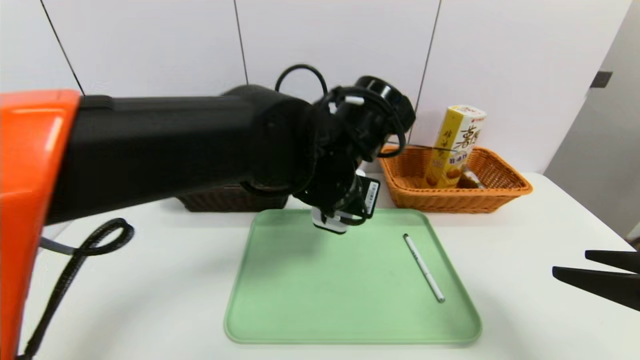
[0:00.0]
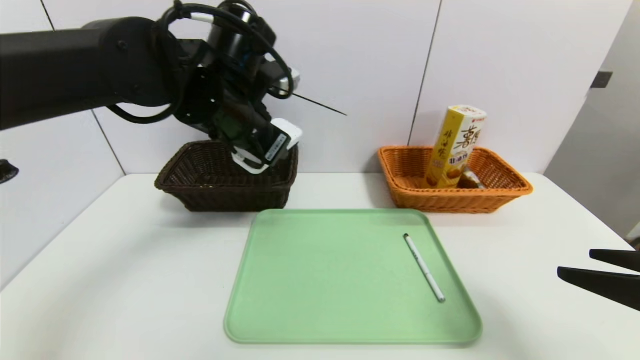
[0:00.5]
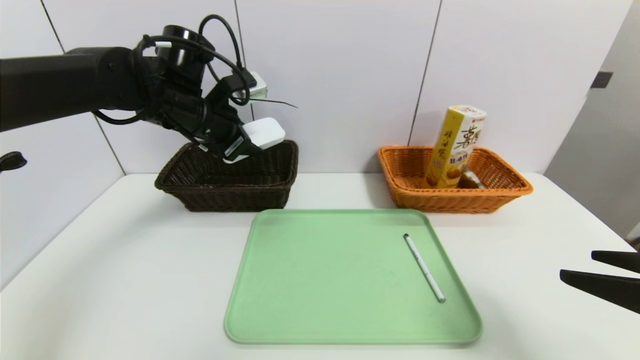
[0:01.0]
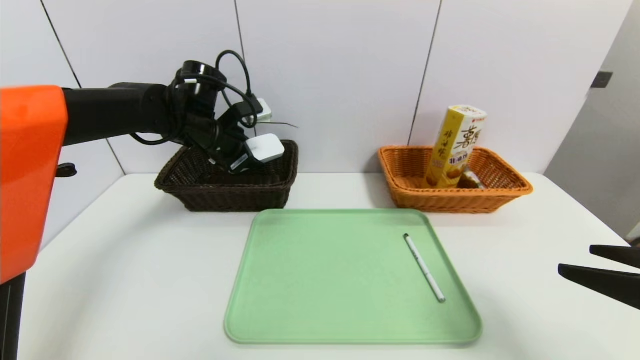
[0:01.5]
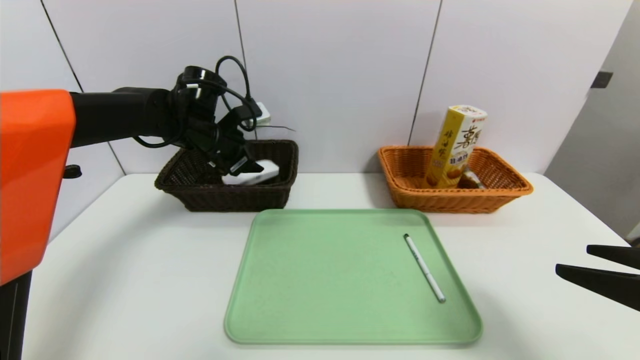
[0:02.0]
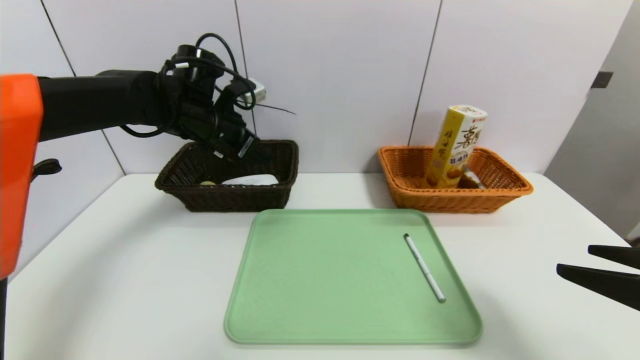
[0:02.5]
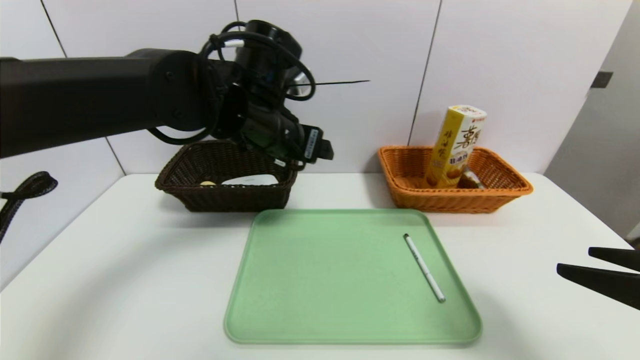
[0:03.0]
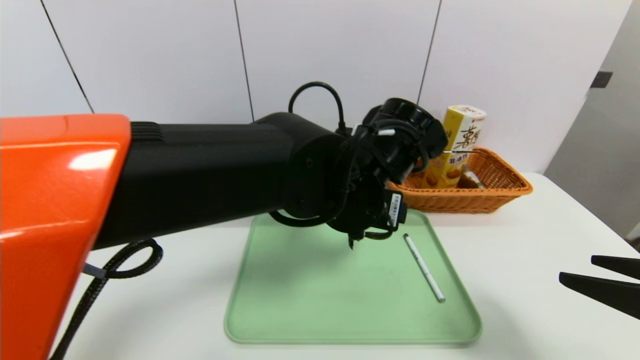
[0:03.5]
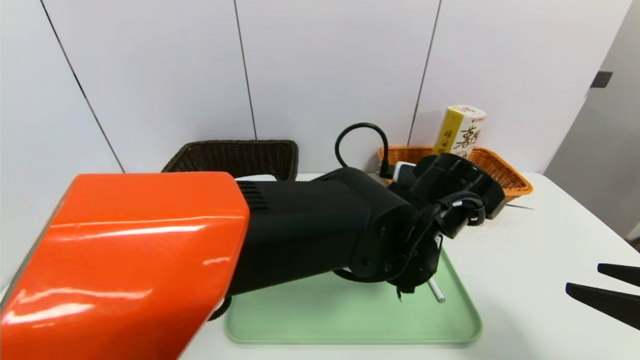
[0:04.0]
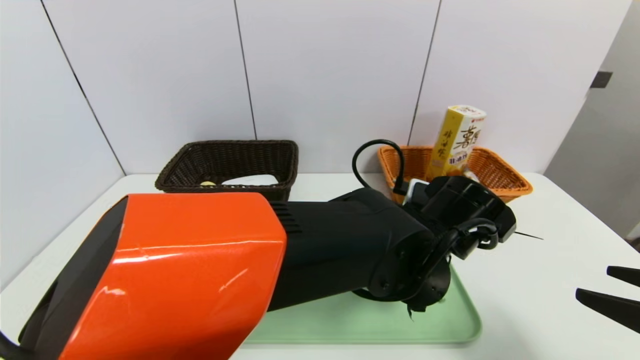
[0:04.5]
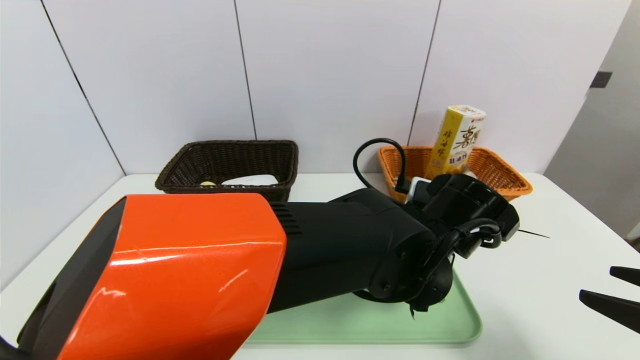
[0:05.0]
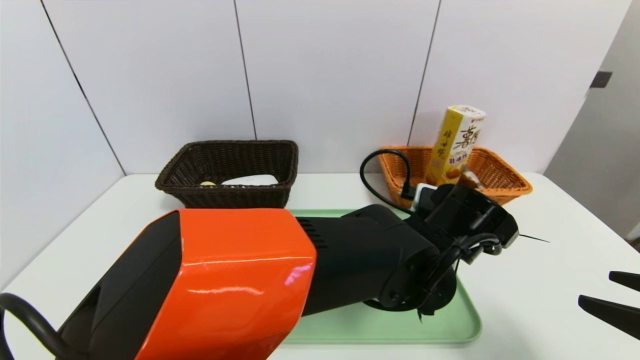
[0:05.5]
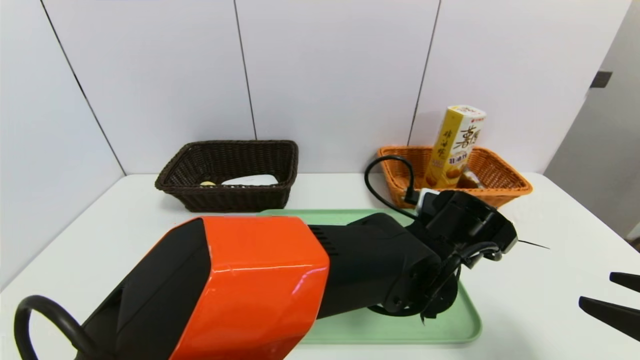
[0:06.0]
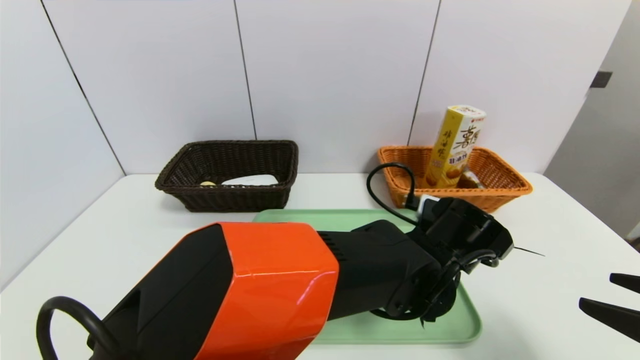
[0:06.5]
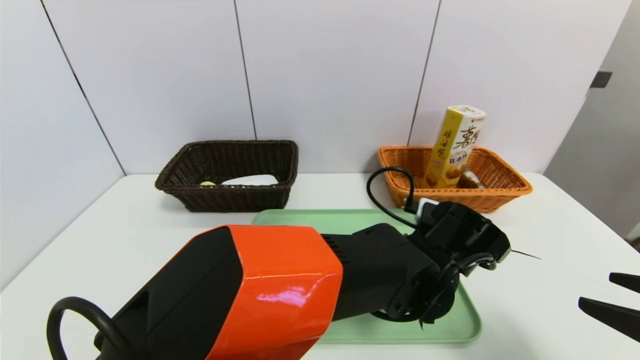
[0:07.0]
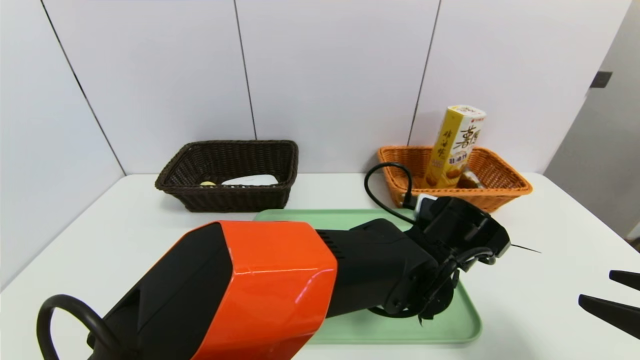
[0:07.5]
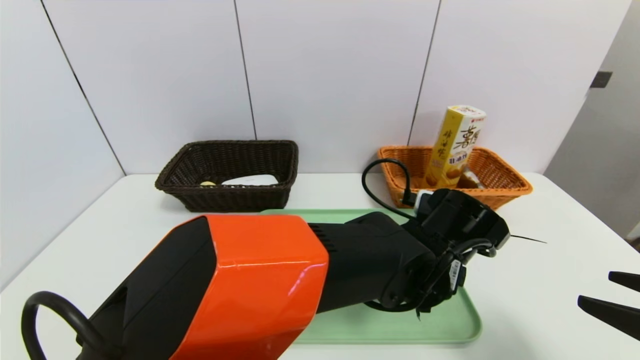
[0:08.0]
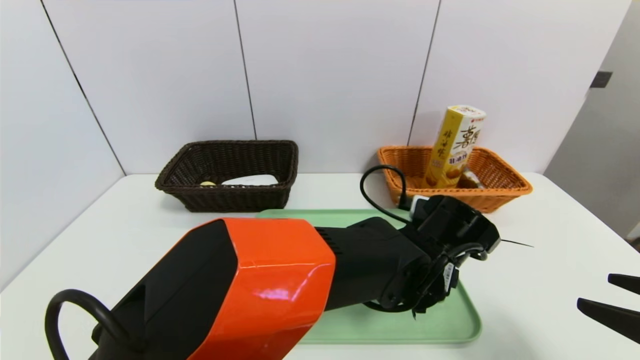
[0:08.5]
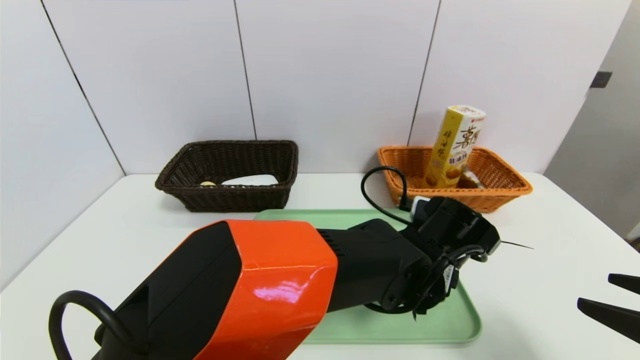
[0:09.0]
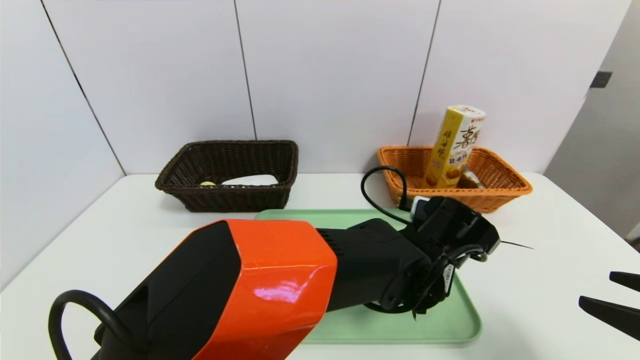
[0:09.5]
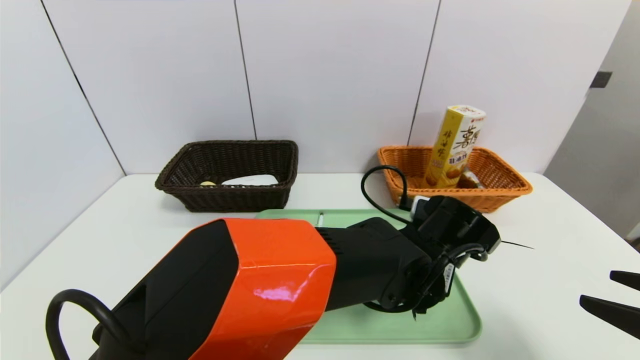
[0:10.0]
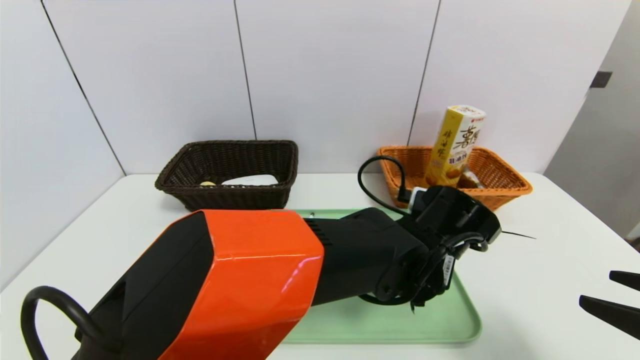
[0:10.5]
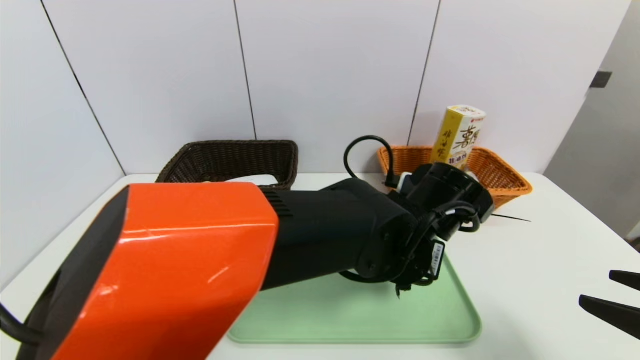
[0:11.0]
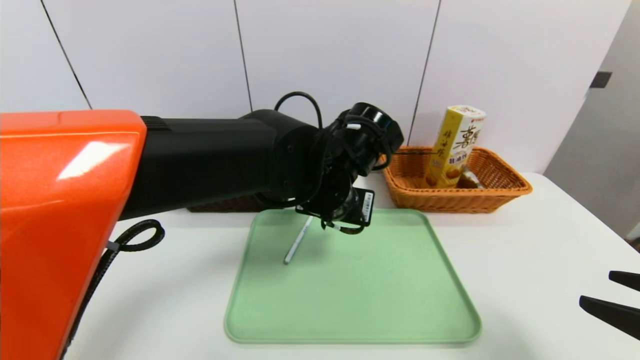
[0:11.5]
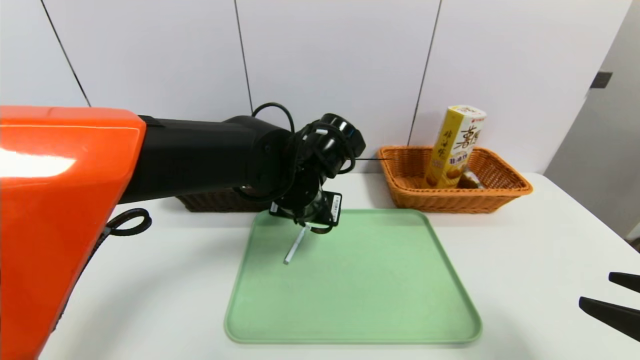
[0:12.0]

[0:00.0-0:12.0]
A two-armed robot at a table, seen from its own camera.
Task of the whole recording: place the food in the right basket with the right gripper, and place the non food items in the left basket with the left gripper.
Step, 0:00.0 to 0:02.5: Grasp the white eraser and put it in the left basket.
0:00.0 to 0:02.0: The left gripper heads to the left and forward, covering roughly 25 cm.
0:02.0 to 0:04.0: The left gripper is displaced to the right and backward by roughly 35 cm.
0:04.0 to 0:06.0: The left gripper shifts by roughly 5 cm, and closes, then reopens.
0:06.0 to 0:08.0: There are only small adjustments of the grippers.
0:08.0 to 0:10.0: The left gripper closes its fingers.
0:10.0 to 0:12.0: The left gripper moves to the left and upward, some 15 cm, and opens.

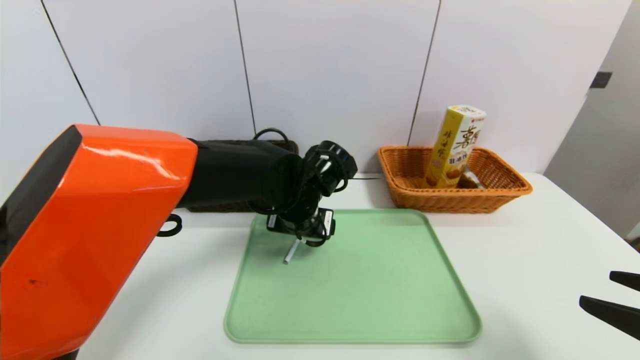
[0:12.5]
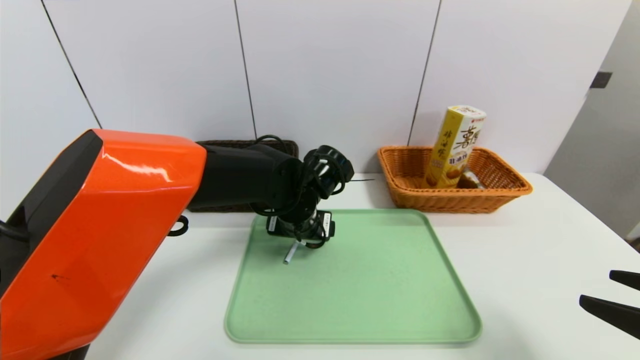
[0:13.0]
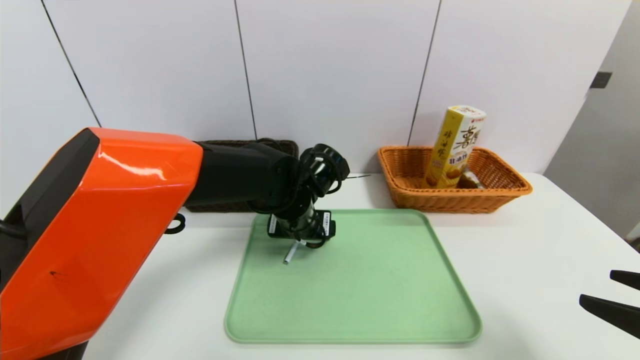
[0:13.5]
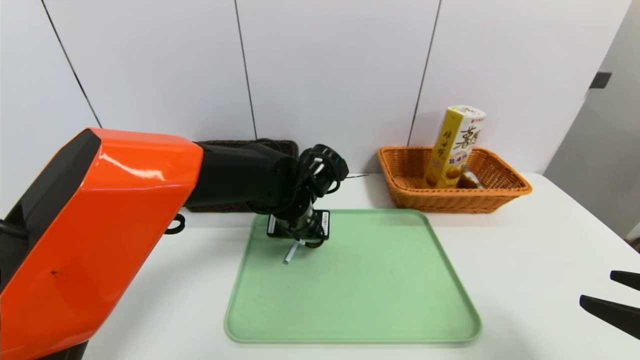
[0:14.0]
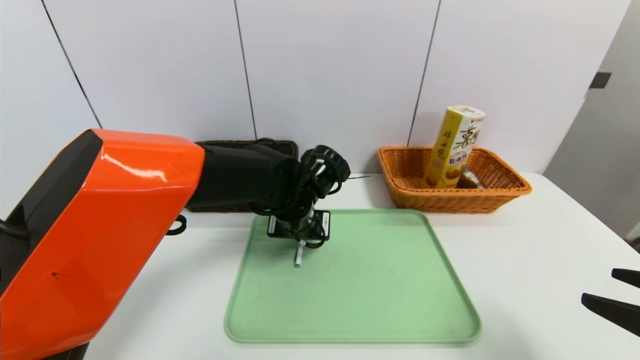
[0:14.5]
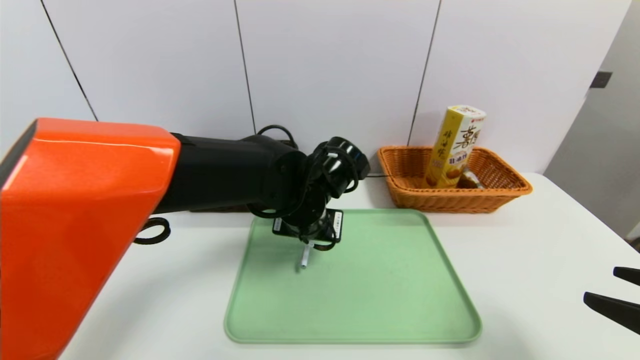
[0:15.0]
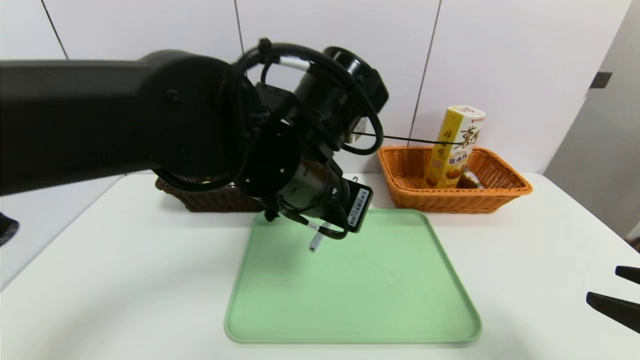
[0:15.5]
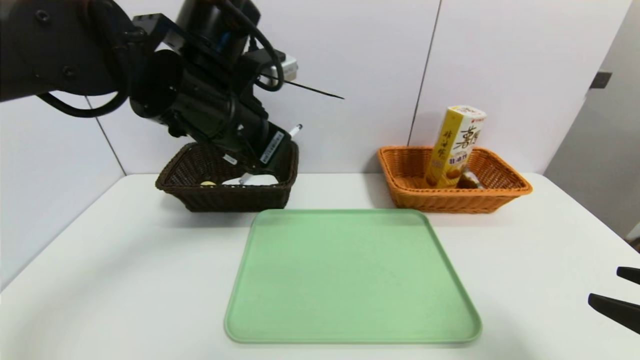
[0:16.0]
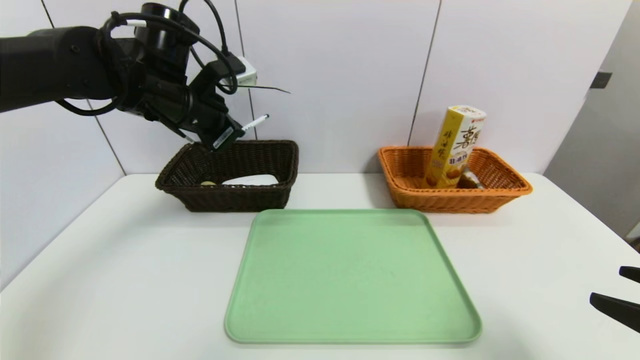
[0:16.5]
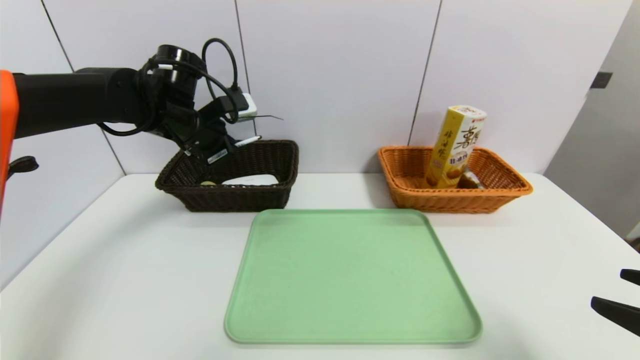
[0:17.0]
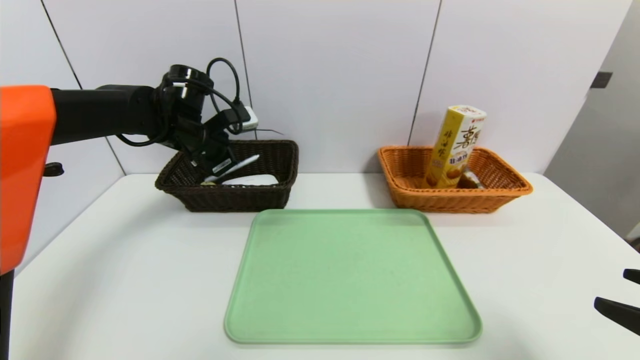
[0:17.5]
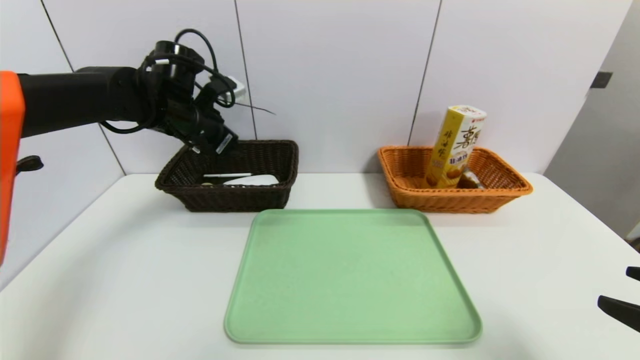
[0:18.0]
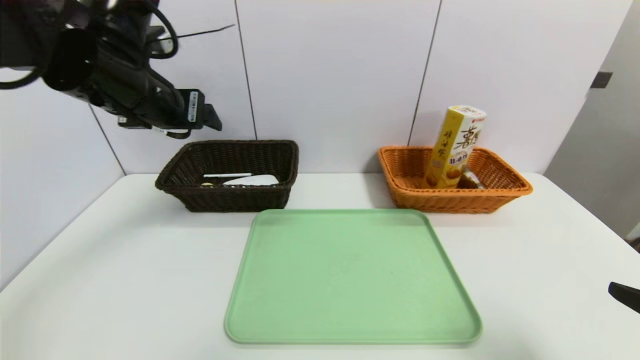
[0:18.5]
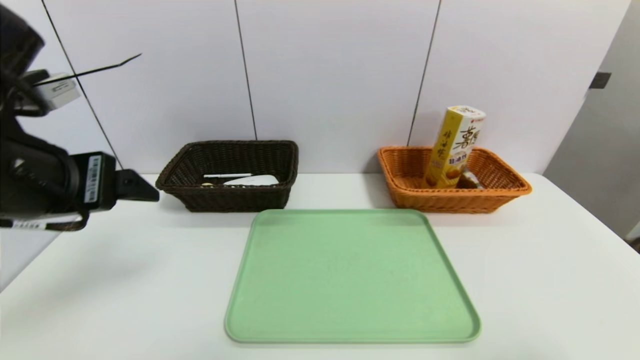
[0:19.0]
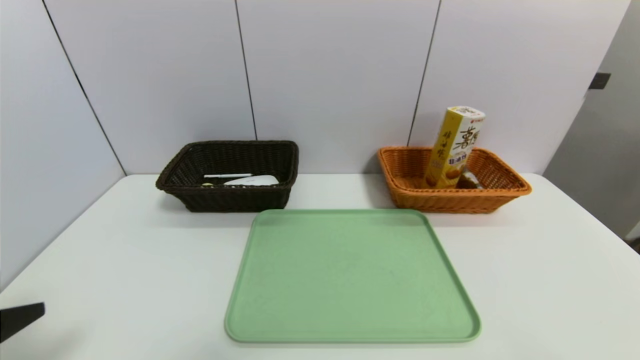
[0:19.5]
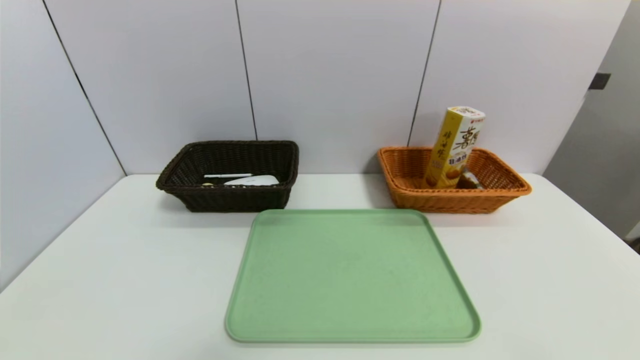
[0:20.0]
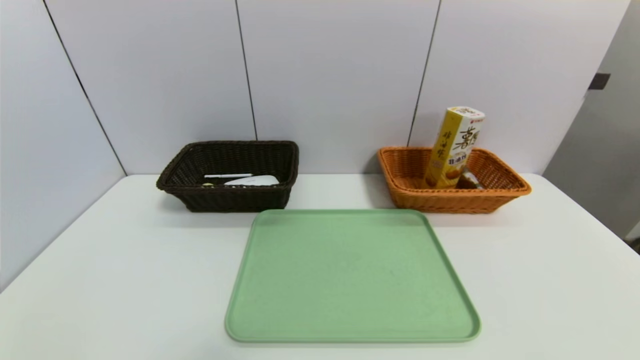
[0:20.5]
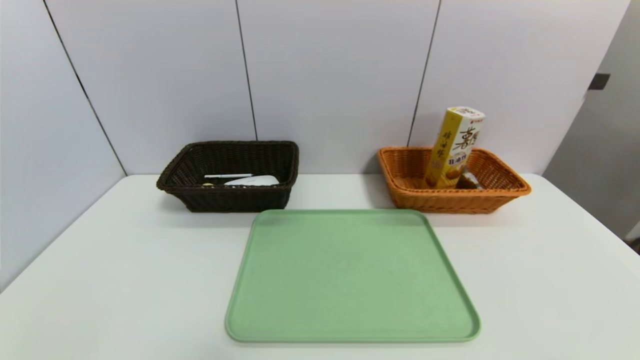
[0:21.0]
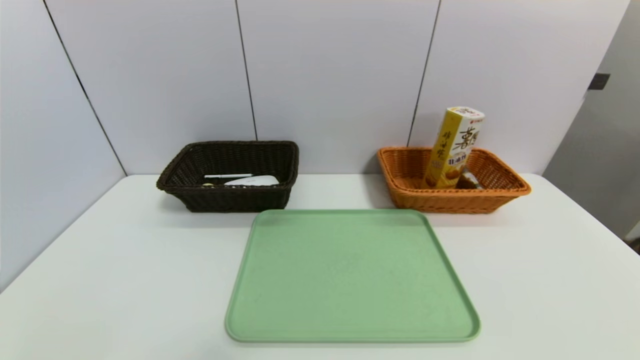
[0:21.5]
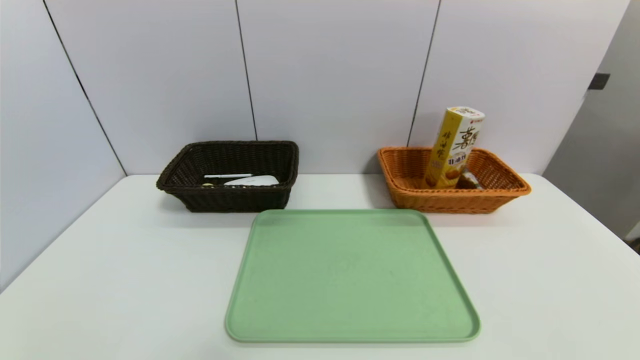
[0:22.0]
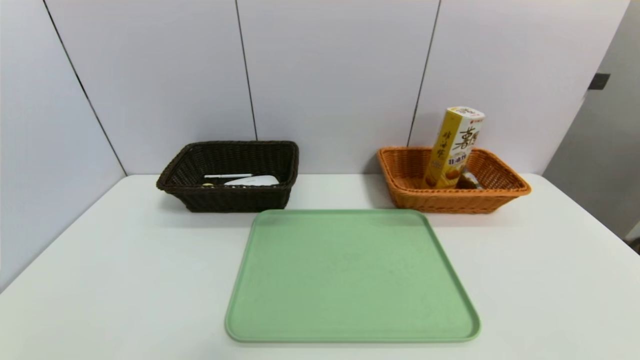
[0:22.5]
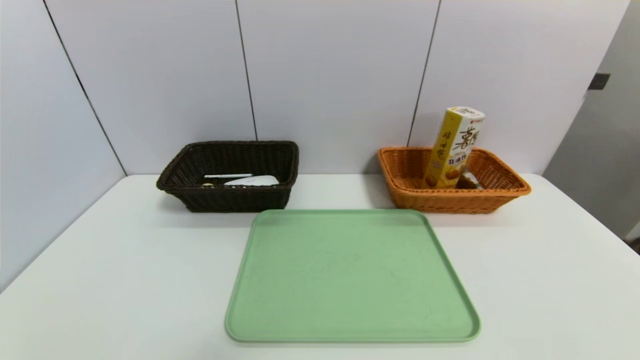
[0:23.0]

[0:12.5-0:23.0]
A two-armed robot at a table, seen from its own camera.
Task of the whole recording: place the food in the right basket with the right gripper, and place the non food items in the left basket with the left gripper.
Step, 0:12.5 to 0:18.0: Grasp the ballpoint pen and put it in the left basket.
0:12.5 to 0:14.5: The left gripper closes up.
0:14.5 to 0:16.5: The left gripper is displaced to the left and upward by roughly 20 cm.
0:16.5 to 0:19.0: The left gripper is displaced backward by about 20 cm, and opens its fingers.
0:19.0 to 0:21.0: The right gripper shifts some 10 cm backward and downward. The left gripper is displaced downward and backward by about 30 cm.
